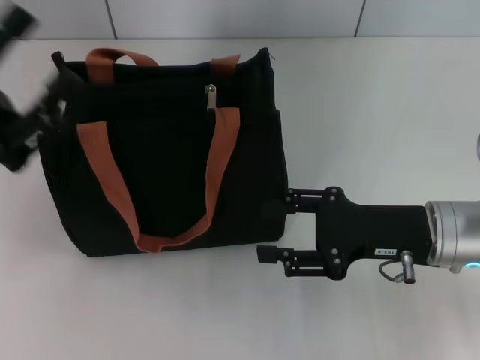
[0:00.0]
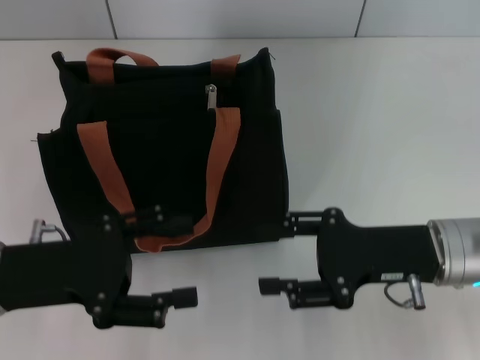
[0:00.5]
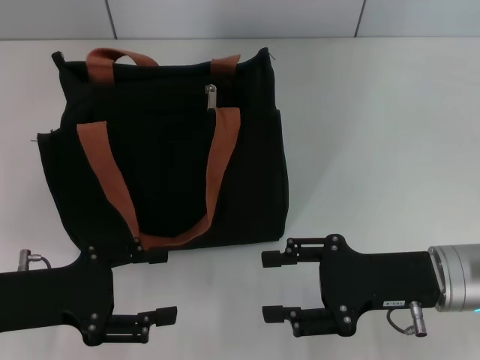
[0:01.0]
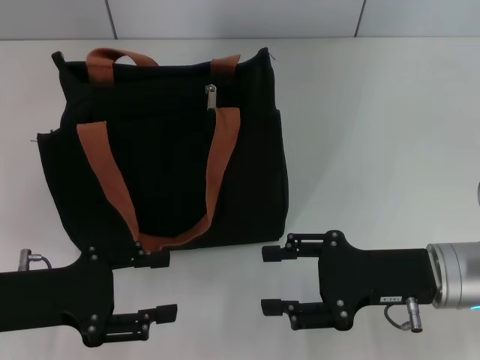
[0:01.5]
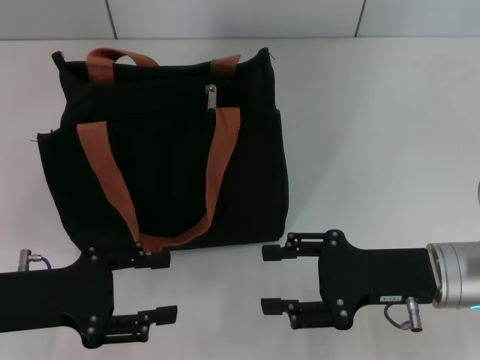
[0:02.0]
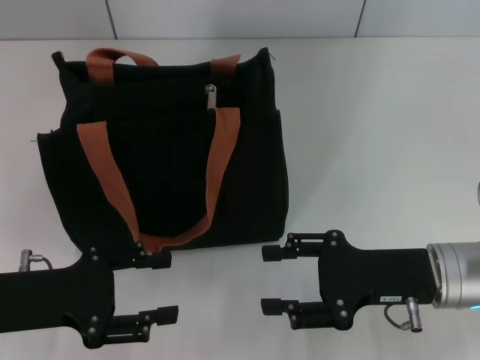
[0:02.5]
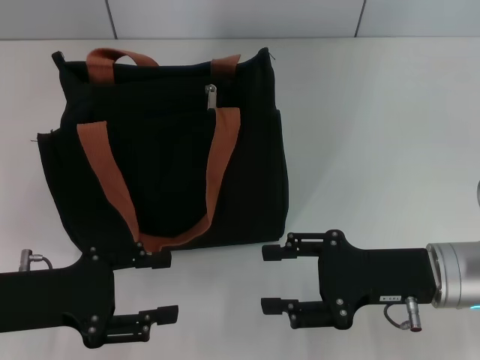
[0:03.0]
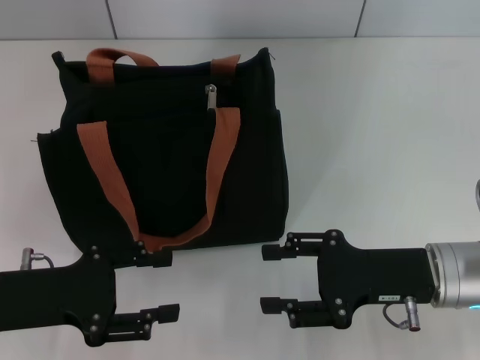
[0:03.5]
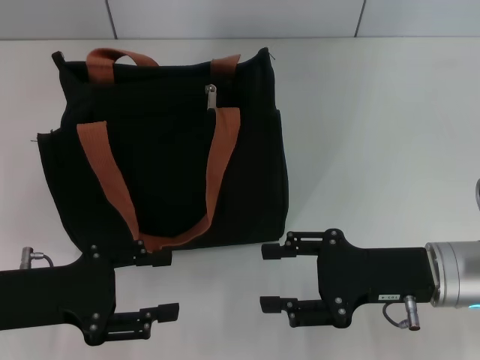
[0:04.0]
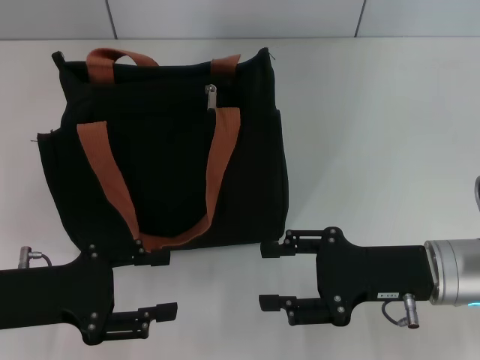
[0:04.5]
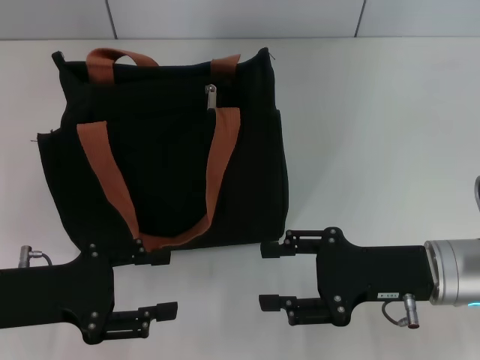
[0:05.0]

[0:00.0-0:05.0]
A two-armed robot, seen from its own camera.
0:00.0 to 0:02.5: The left gripper shifts about 5 cm downward.
0:02.5 to 0:05.0: Neither gripper changes place.

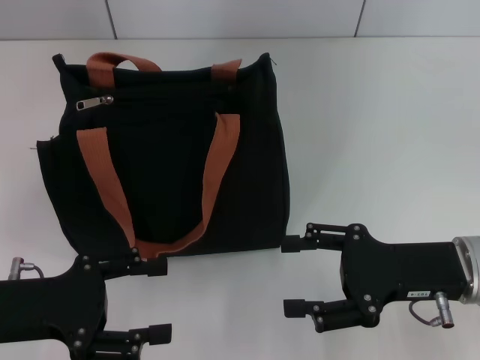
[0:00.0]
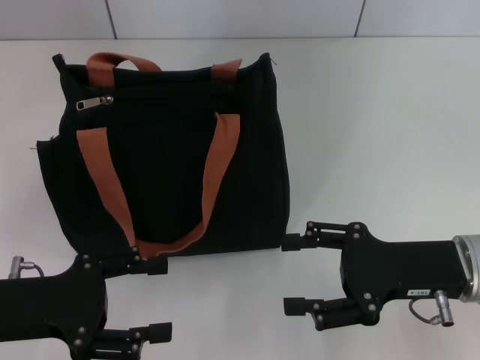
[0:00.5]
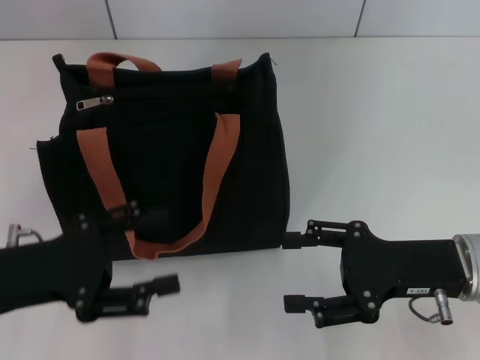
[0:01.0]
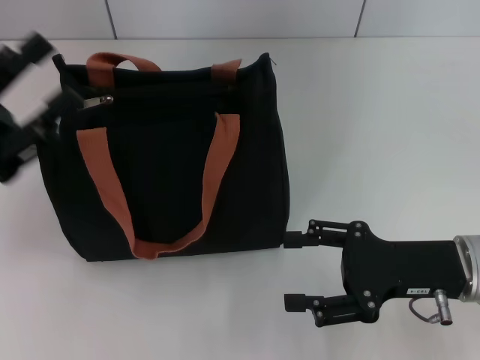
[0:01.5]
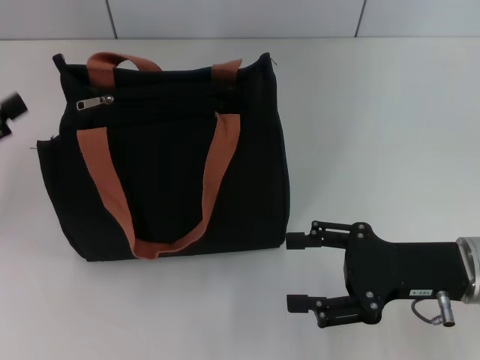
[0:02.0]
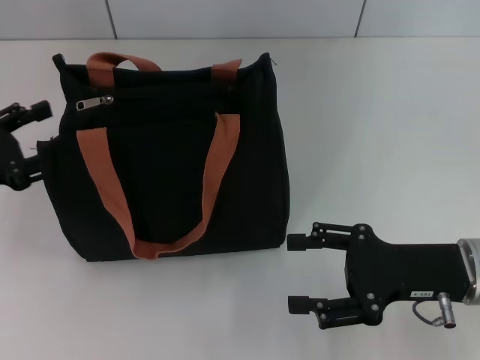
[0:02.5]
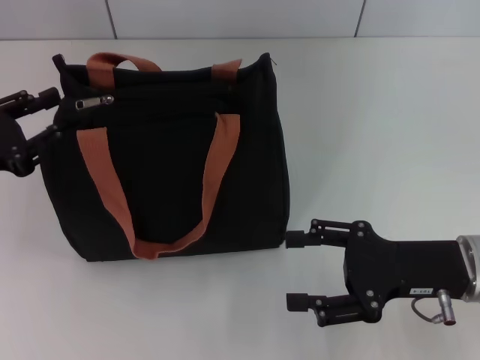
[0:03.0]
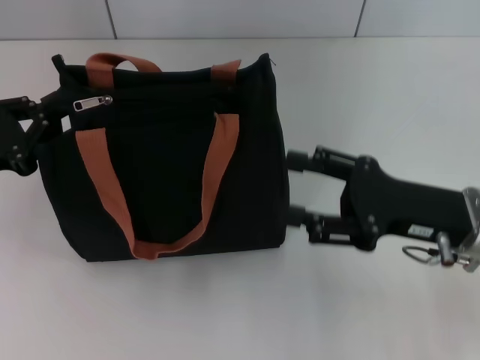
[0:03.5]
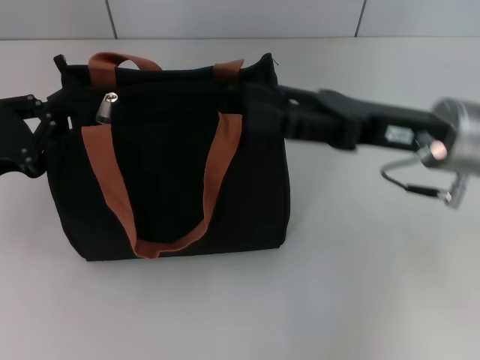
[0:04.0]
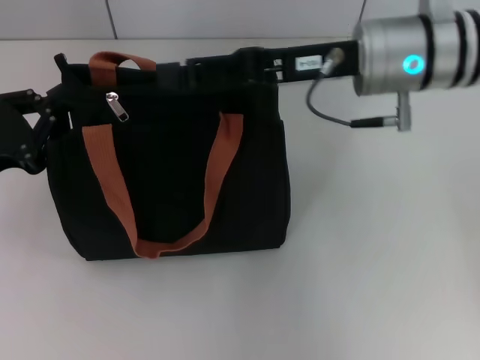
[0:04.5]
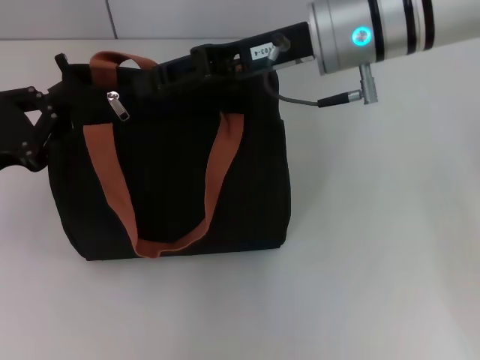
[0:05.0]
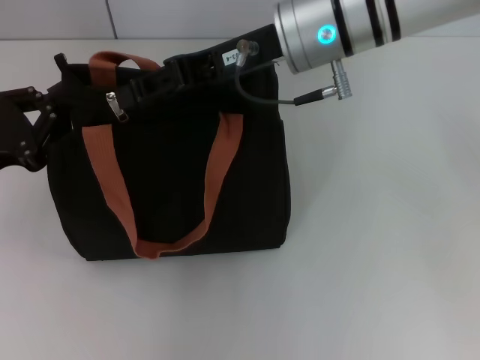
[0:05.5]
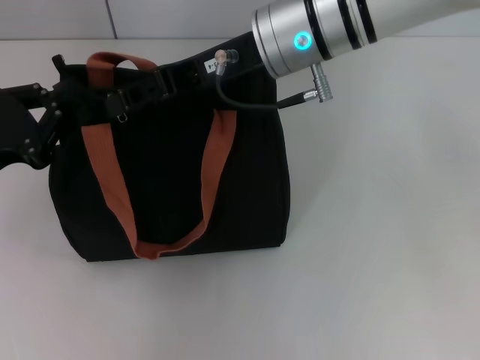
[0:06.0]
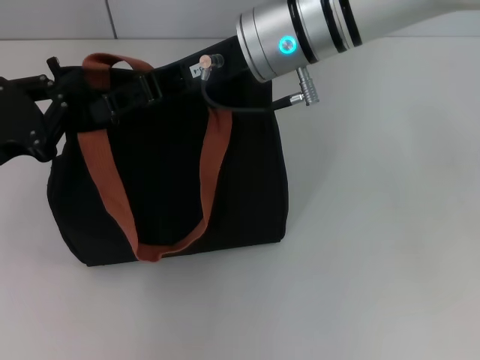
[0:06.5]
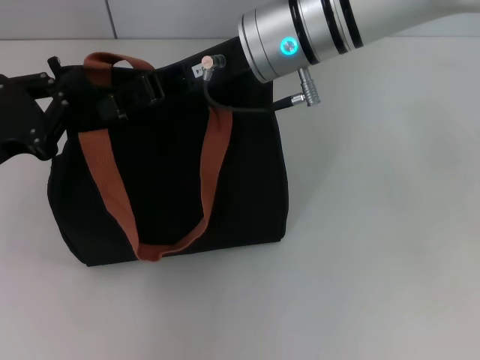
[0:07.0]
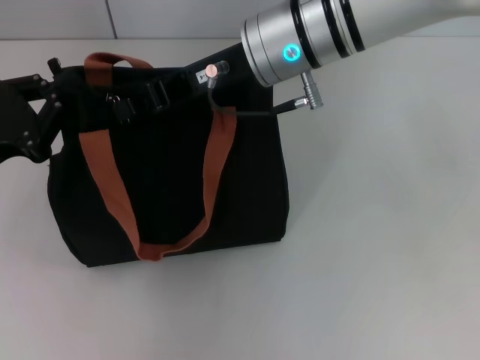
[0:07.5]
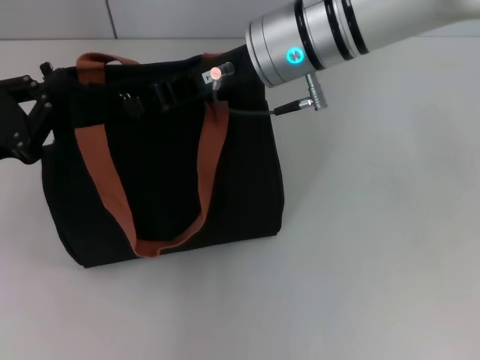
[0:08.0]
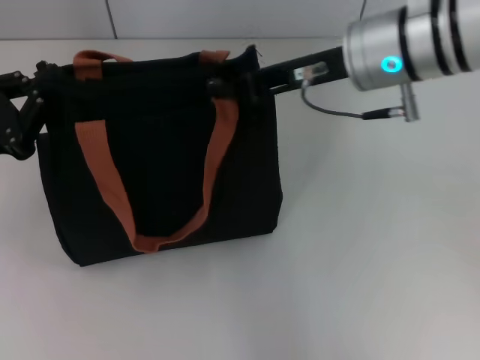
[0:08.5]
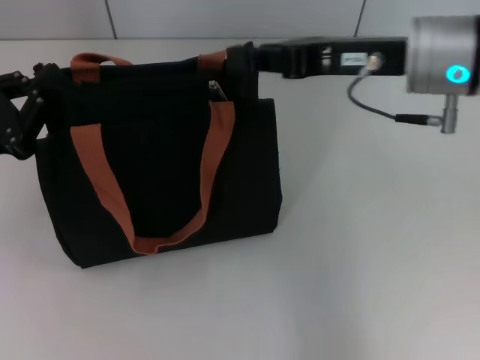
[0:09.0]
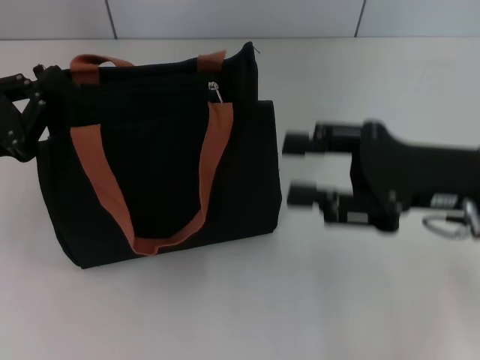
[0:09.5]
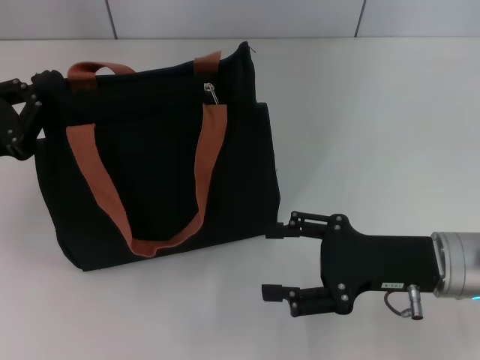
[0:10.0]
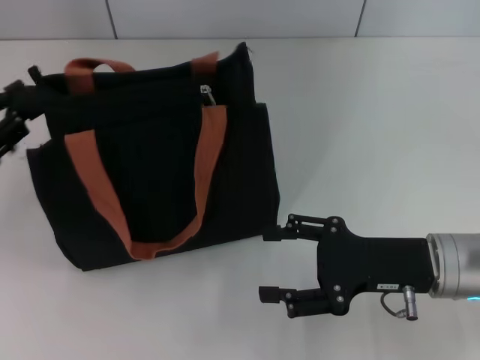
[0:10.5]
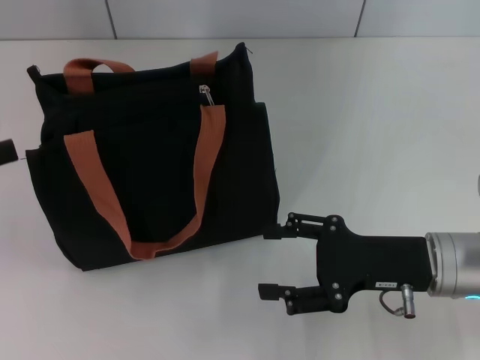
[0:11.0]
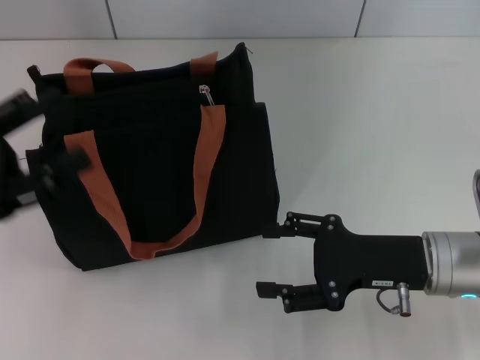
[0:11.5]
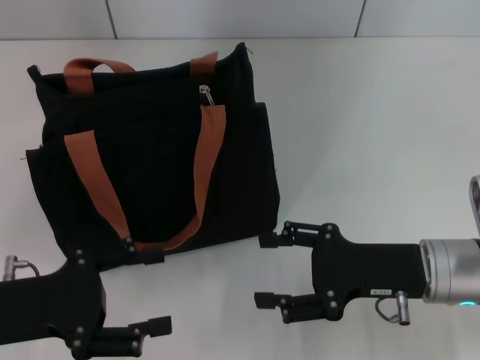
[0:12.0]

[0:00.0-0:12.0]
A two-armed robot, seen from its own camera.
Step, 0:00.0 to 0:09.0: Pull up the zipper with your right hand.
Step, 0:09.5 to 0:10.5: Grab the zipper with your left hand.
0:00.0 to 0:02.0: The left gripper travels to the left by some 10 cm.
0:02.0 to 0:04.0: The right gripper goes roughly 10 cm upward and forward, while the left gripper moves to the right, approximately 5 cm, and closes.
0:04.0 to 0:06.0: The right gripper is displaced to the left, forward and upward by roughly 15 cm, and closes up.
0:06.0 to 0:08.0: The right gripper closes up.
0:08.0 to 0:10.0: The right gripper is displaced to the right, backward and downward by roughly 25 cm, and opens its fingers.
0:10.0 to 0:12.0: The left gripper shifts roughly 5 cm backward, and opens its fingers.

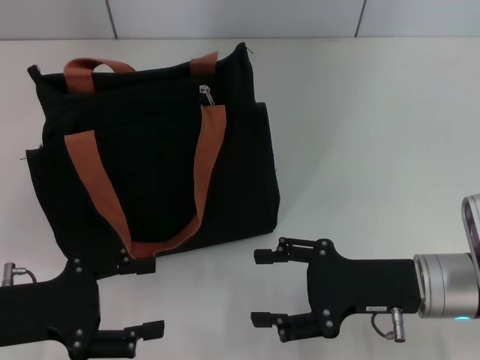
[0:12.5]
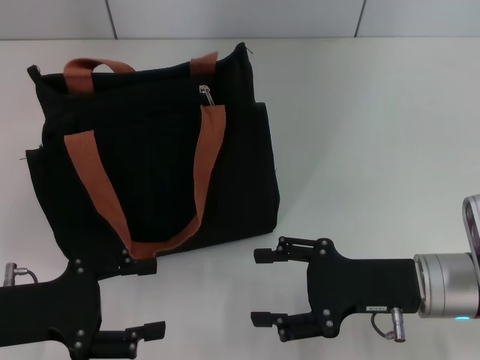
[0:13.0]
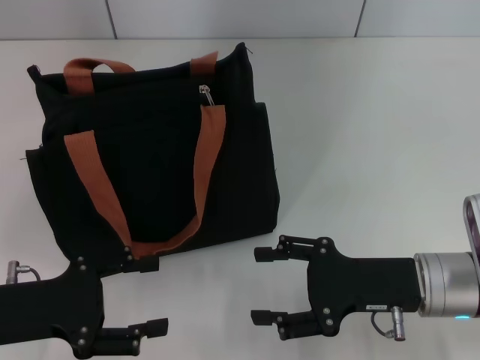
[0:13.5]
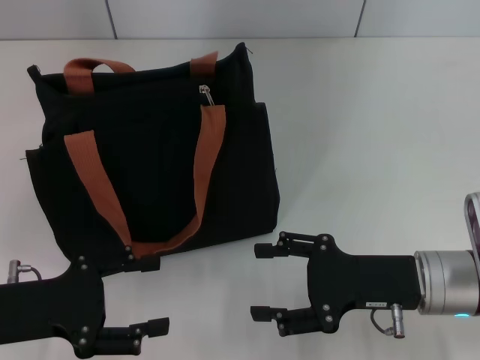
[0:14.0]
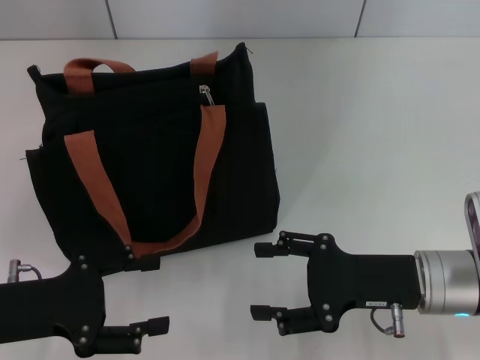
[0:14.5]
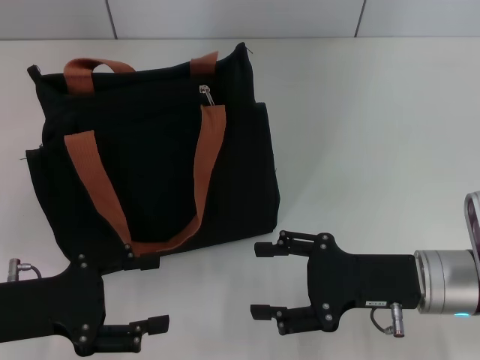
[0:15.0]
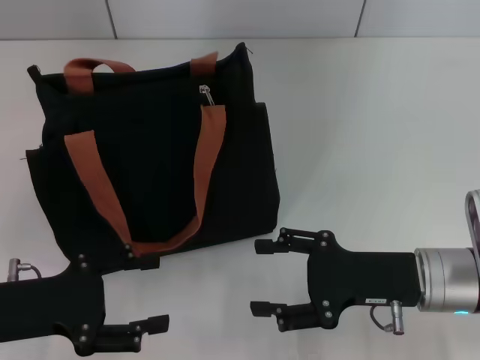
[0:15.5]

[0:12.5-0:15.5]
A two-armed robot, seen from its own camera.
0:12.5 to 0:15.5: The two grippers keep their place.

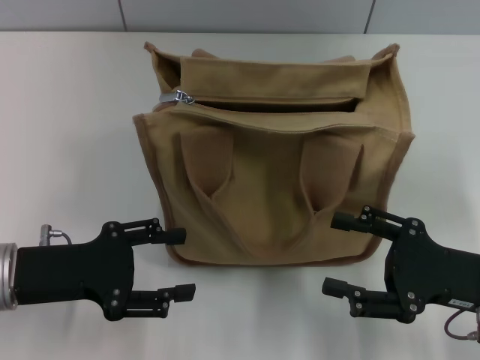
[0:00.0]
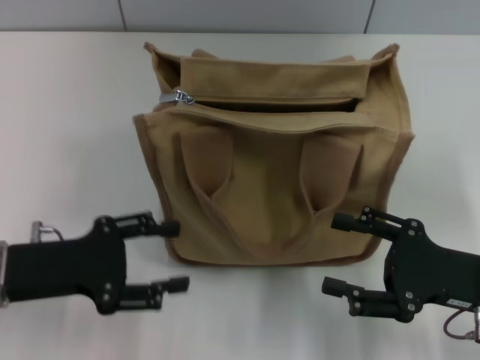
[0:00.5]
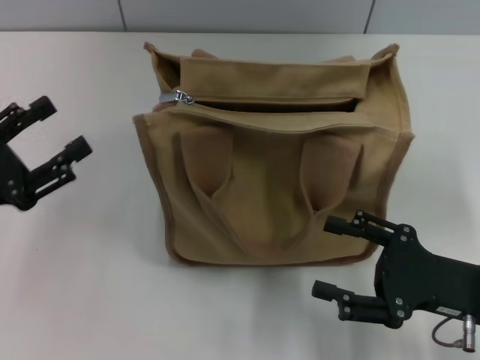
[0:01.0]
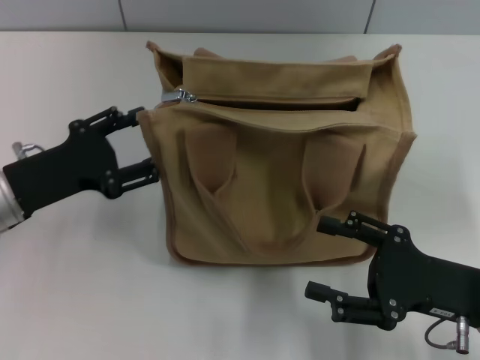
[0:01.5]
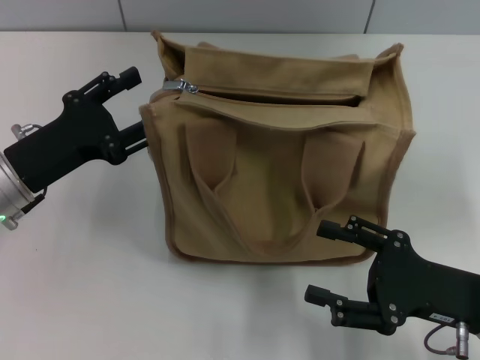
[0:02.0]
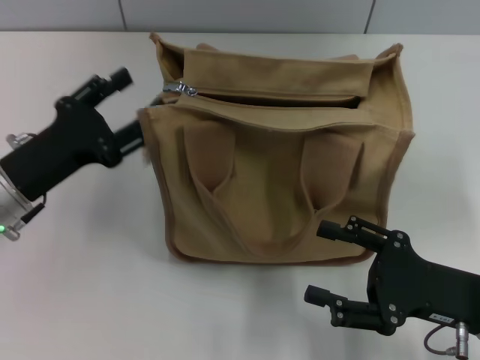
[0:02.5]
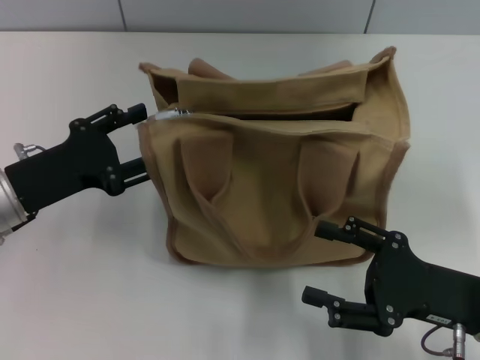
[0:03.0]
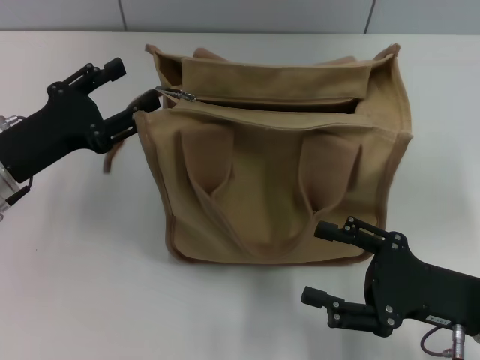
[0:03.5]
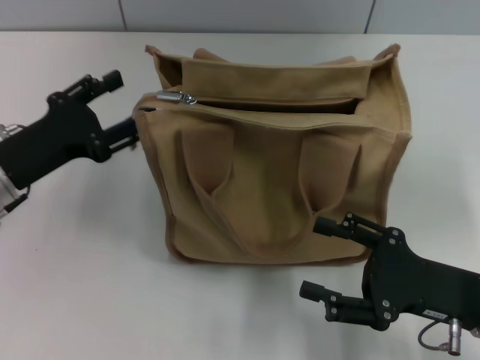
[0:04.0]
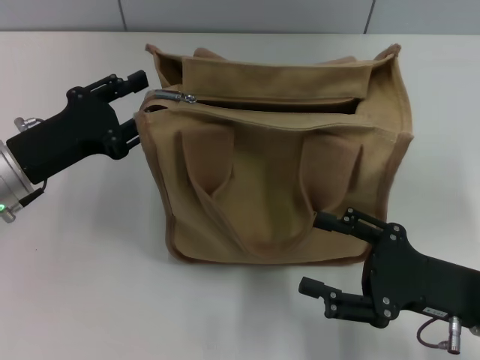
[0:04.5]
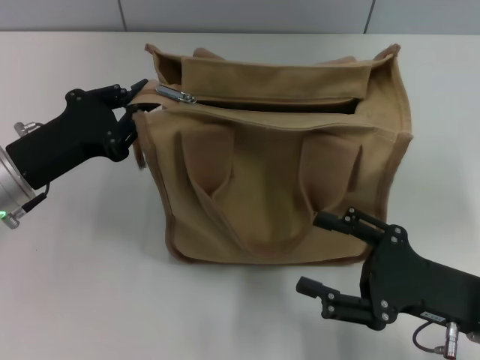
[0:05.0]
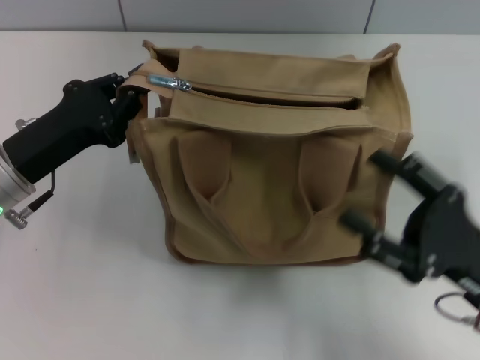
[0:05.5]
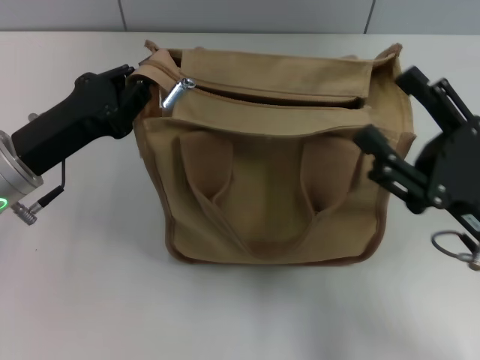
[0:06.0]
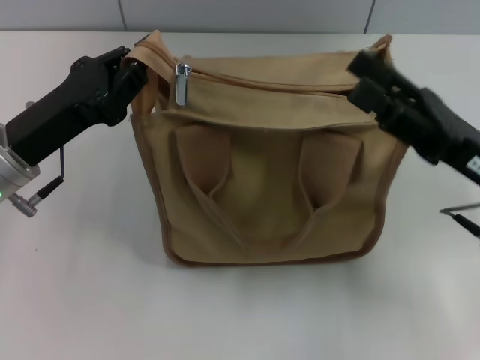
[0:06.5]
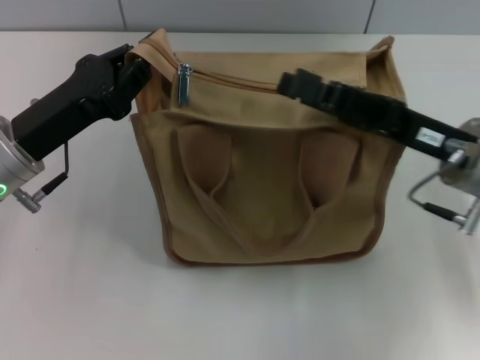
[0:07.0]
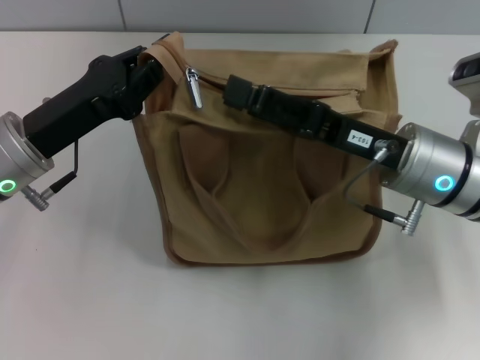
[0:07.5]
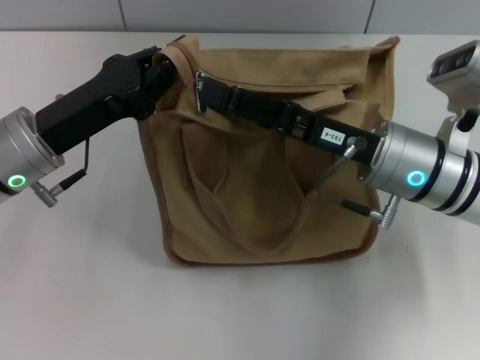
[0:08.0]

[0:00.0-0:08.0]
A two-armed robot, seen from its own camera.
0:00.0 to 0:02.0: The left gripper moves forward, approximately 5 cm.
0:02.0 to 0:04.0: The grippers move only a little.
0:04.0 to 0:06.0: The left gripper closes its fingers.
0:06.0 to 0:08.0: The right gripper shifts about 15 cm forward and to the left.
